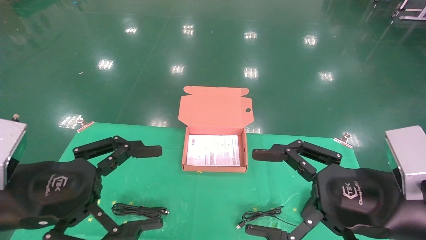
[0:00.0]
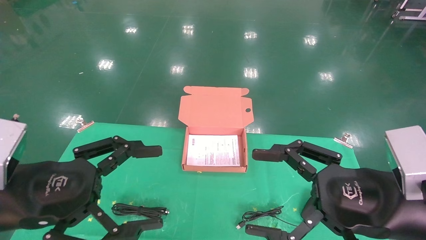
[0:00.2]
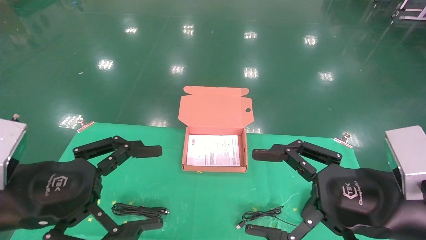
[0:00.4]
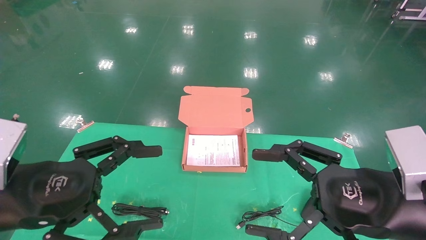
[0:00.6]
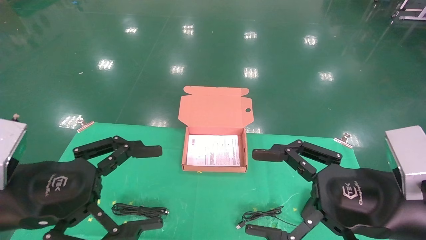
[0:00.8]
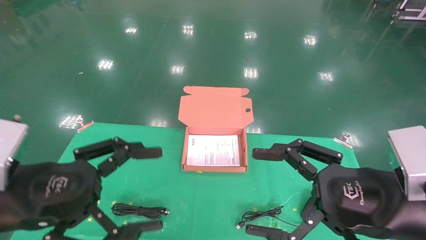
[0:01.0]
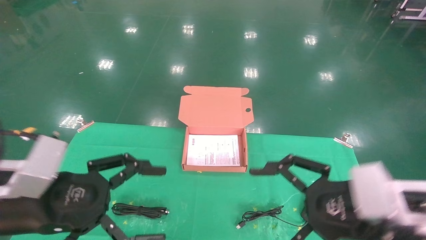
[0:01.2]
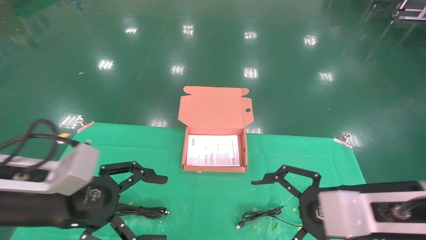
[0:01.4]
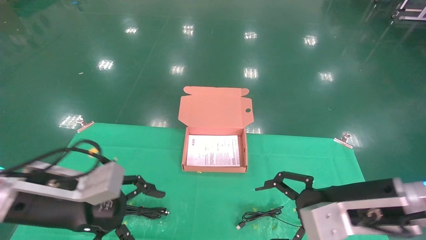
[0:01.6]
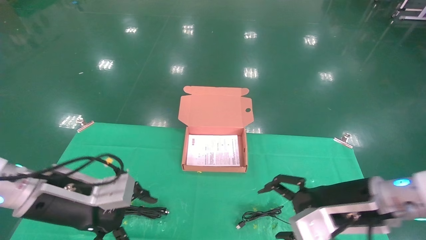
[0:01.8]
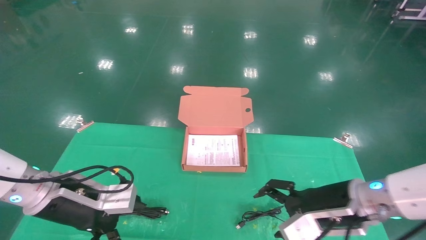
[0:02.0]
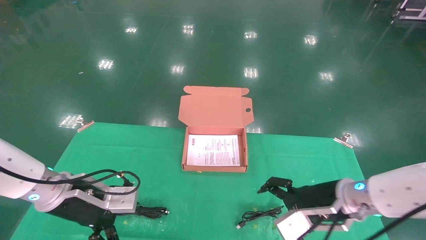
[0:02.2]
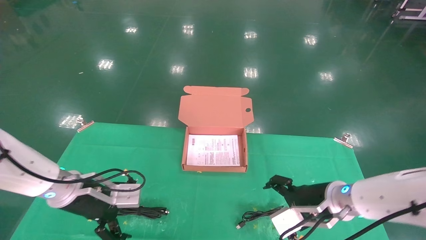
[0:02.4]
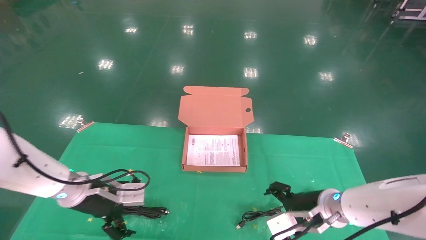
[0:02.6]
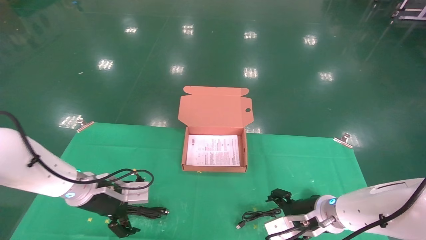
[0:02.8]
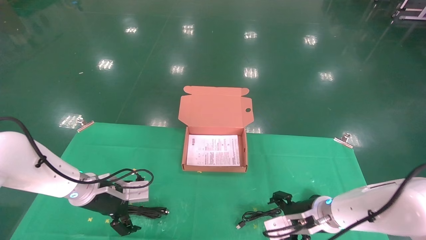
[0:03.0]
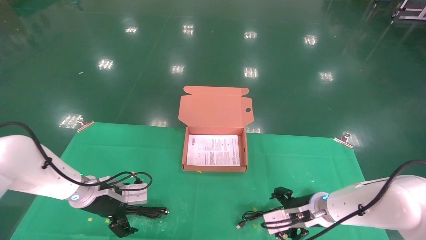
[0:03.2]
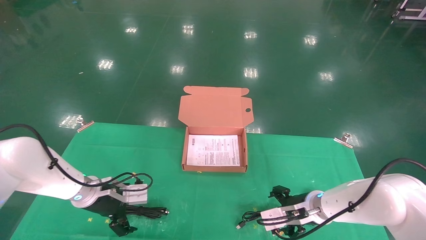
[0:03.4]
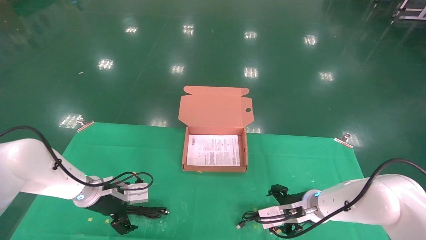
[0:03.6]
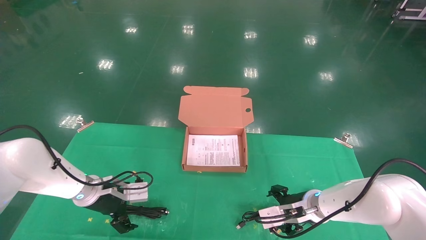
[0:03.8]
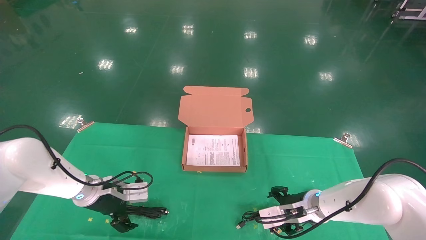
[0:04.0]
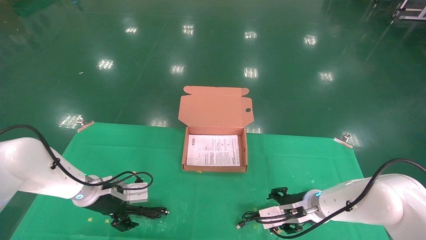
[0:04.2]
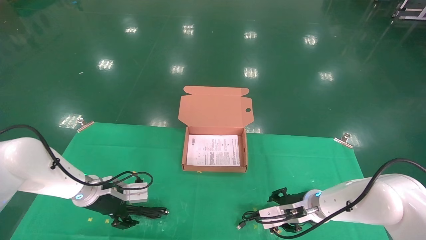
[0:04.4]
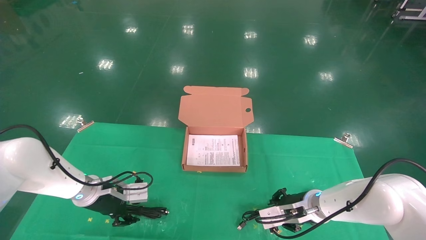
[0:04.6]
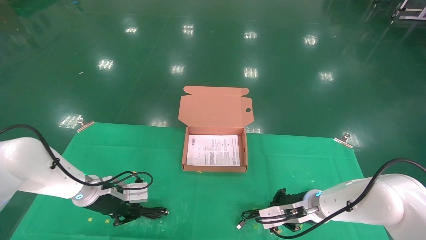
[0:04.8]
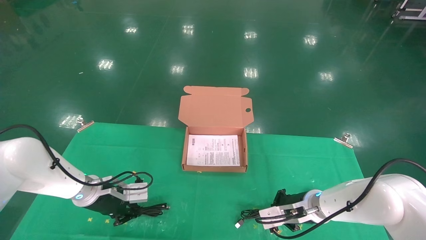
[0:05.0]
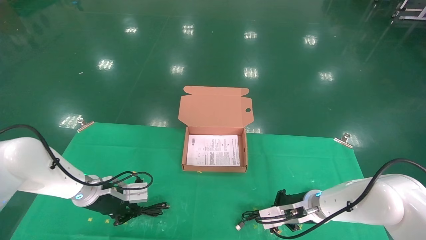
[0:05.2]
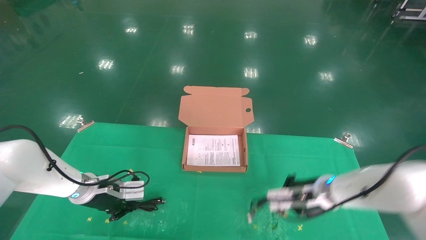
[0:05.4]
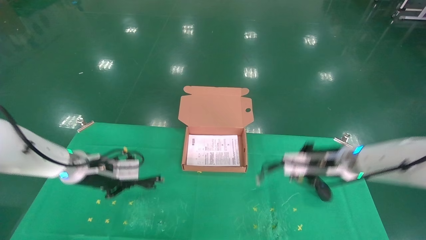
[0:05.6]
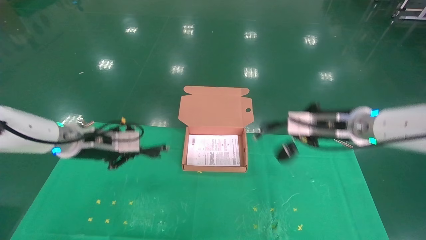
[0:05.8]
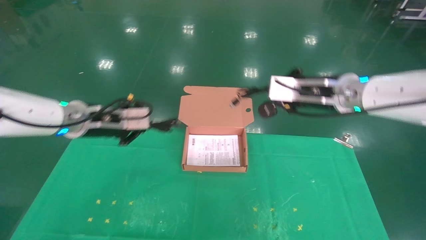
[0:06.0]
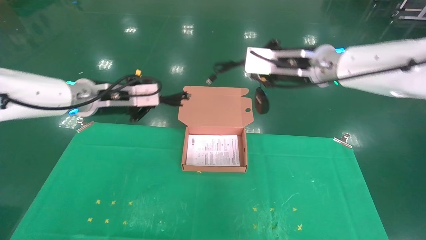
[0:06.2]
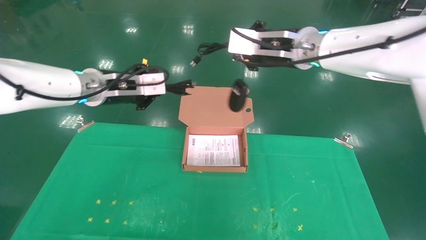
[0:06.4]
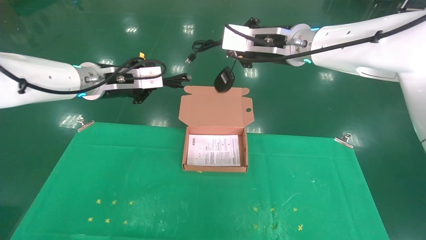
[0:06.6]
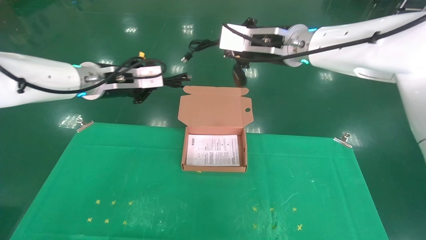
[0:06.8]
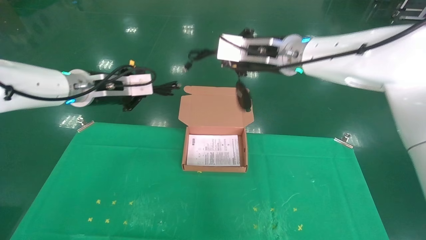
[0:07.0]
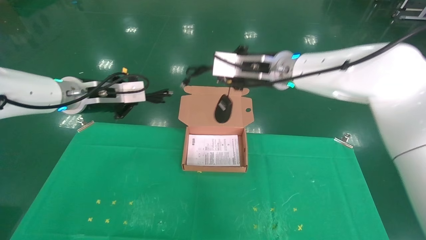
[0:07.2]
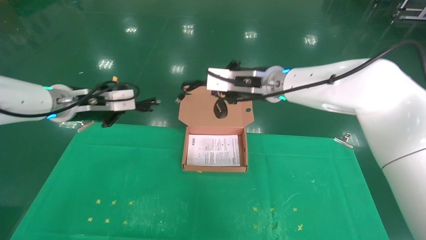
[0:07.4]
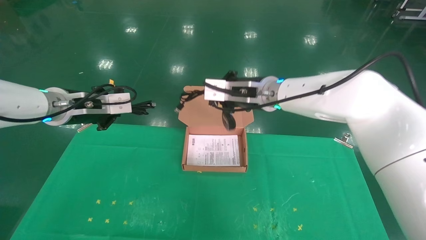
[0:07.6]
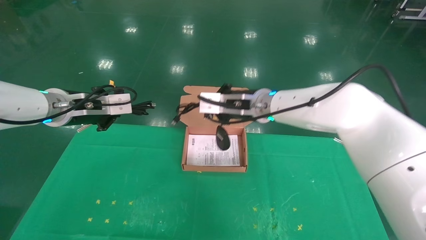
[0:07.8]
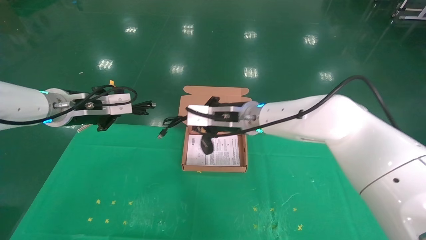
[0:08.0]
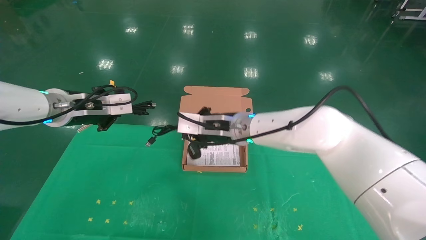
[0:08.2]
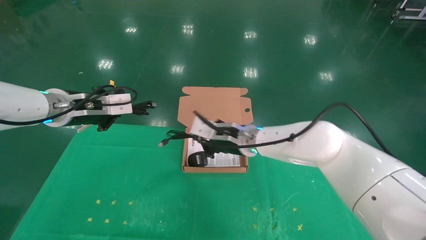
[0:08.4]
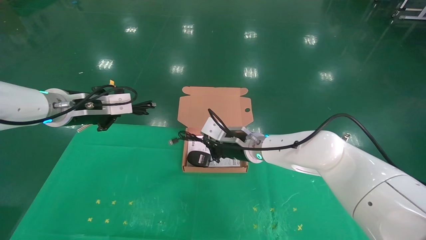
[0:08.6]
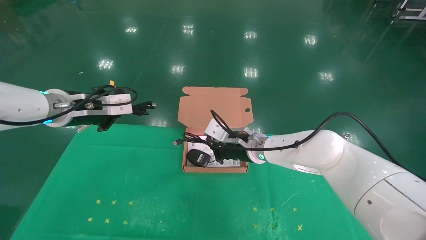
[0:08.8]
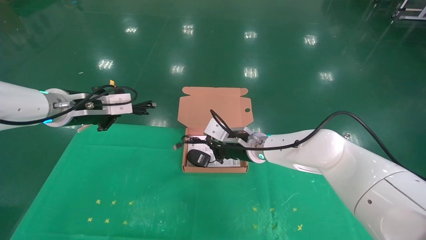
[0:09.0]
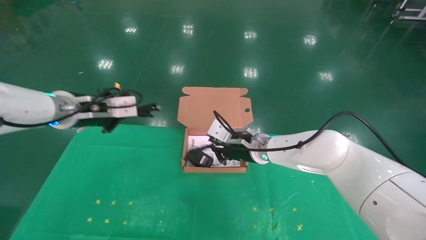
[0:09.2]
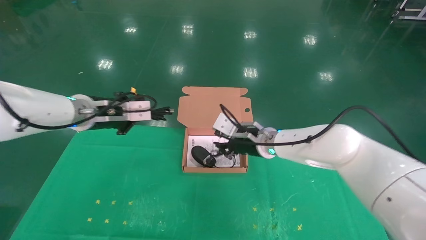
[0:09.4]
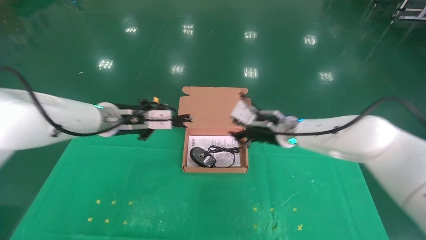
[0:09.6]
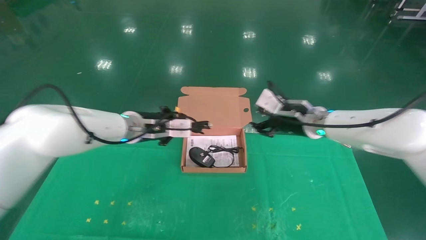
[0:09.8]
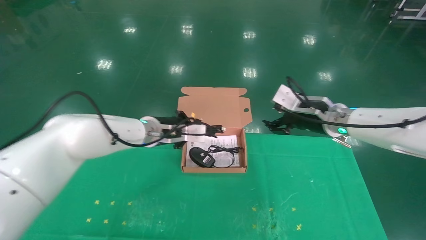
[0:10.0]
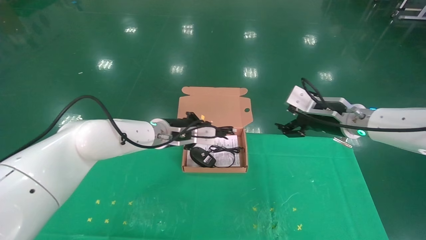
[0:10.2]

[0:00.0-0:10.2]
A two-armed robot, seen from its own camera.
Task of the whole recording: grasp data cable left put into box grasp mouse right put into box.
Step, 0:01.0 to 0:05.6: Grab and pick up both the mouse and power cord from the accessory packaging area at the same time.
0:00.0 to 0:01.4: The left gripper shifts by roughly 5 cm.
0:01.4 to 0:03.0: Both grippers move forward and downward, some 20 cm.
0:03.0 to 0:04.4: There are only small adjustments of the grippers.
0:04.4 to 0:05.8: The two grippers go approximately 15 cm upward. The right gripper closes up. Meanwhile the left gripper closes up.
0:05.8 to 0:07.2: The right gripper is displaced to the left and upward by some 15 cm, while the left gripper moves upward, approximately 10 cm.
0:07.2 to 0:08.8: The right gripper is displaced downward by some 20 cm.
0:08.8 to 0:10.2: The left gripper moves to the right, downward and forward, approximately 20 cm; the right gripper goes roughly 20 cm to the right and upward, and opens its fingers.

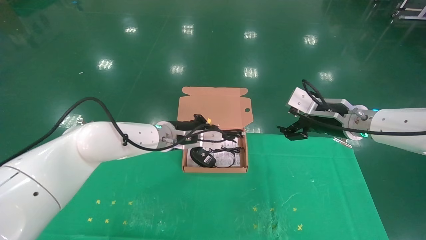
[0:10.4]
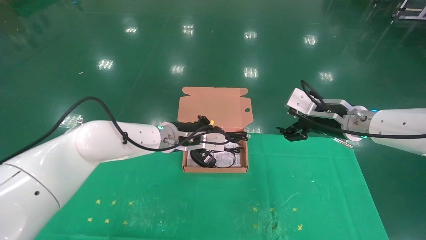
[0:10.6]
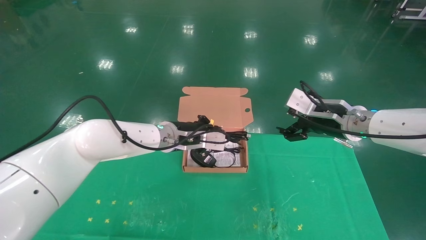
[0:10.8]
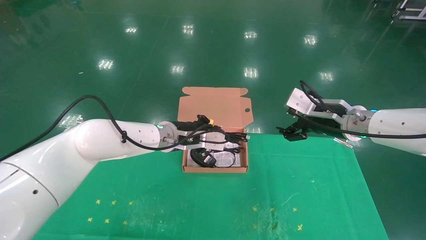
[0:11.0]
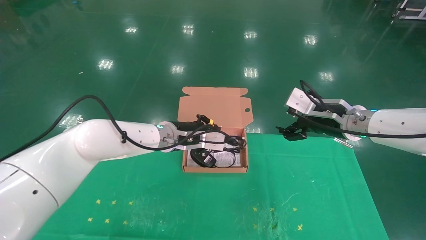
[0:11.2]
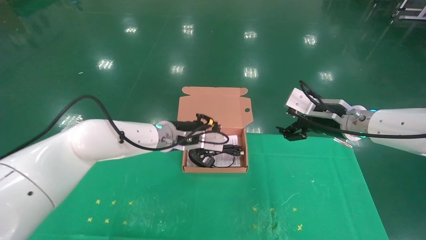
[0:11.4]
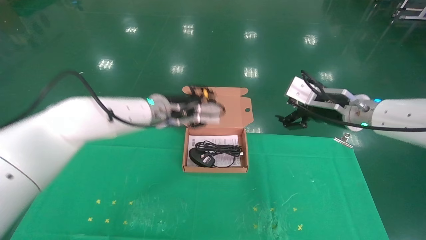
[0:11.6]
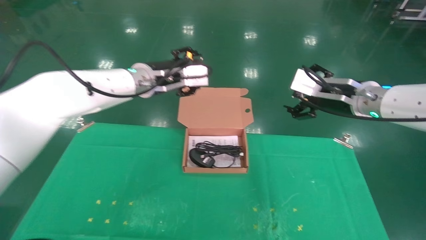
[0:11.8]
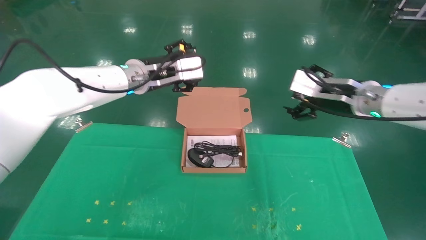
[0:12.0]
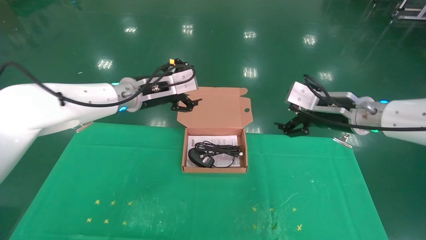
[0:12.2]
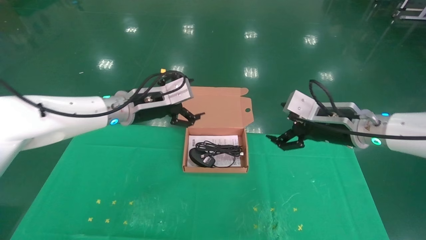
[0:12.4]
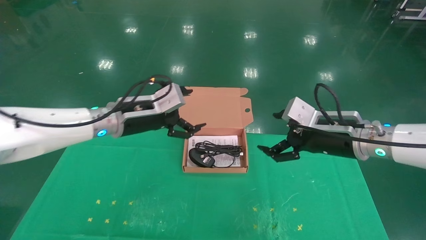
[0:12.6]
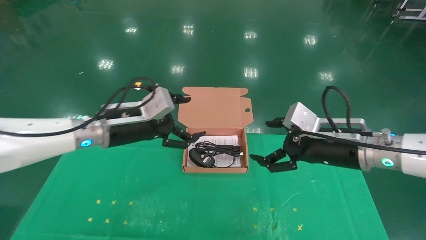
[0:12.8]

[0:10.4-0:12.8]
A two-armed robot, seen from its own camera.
Task of the whole recording: grasp data cable left put into box grasp mouse right put into box.
0:10.4 to 0:11.6: The left gripper heads upward, covering some 5 cm, and opens its fingers.
0:11.6 to 0:12.8: The right gripper goes about 10 cm backward and downward; the left gripper travels to the left and backward by some 10 cm, and opens its fingers.
